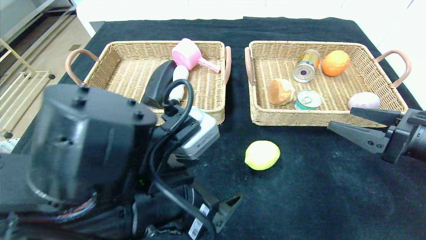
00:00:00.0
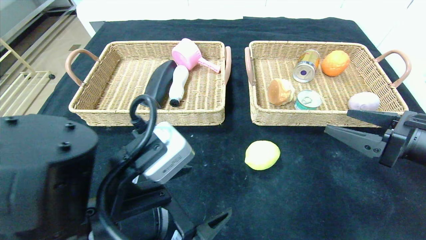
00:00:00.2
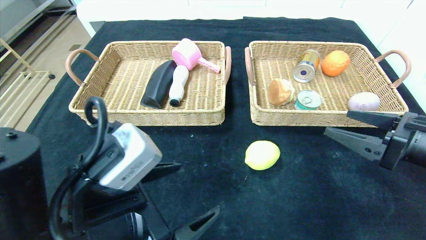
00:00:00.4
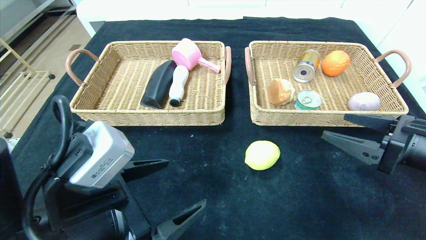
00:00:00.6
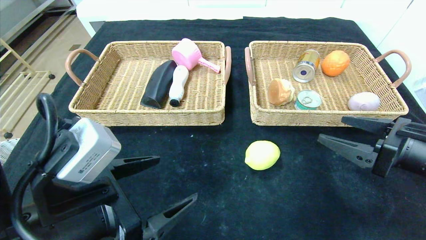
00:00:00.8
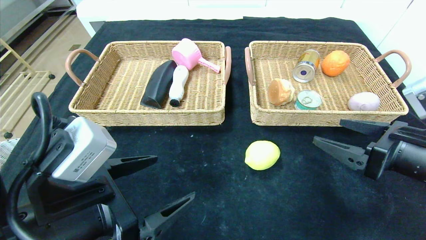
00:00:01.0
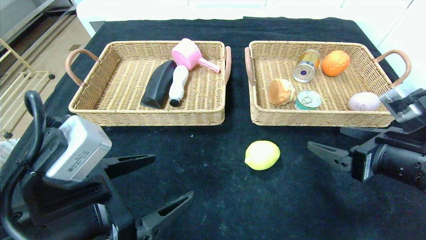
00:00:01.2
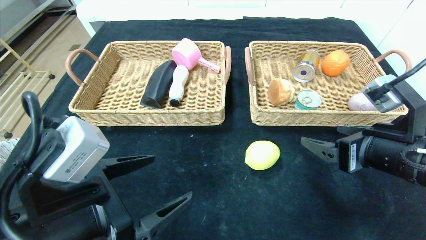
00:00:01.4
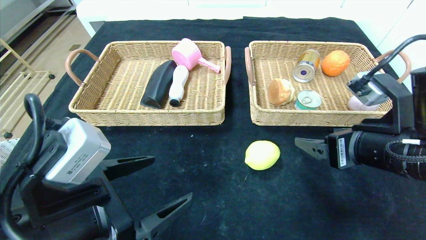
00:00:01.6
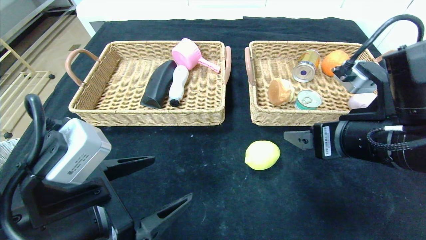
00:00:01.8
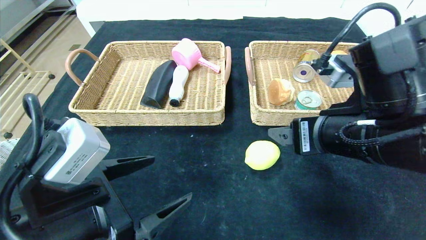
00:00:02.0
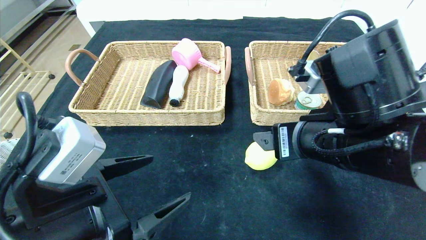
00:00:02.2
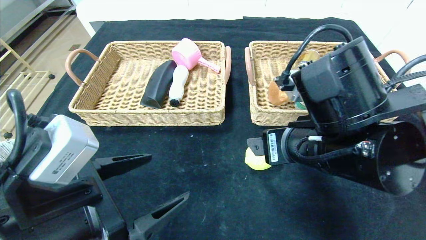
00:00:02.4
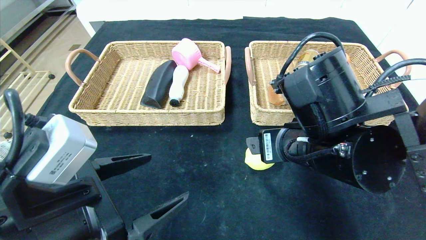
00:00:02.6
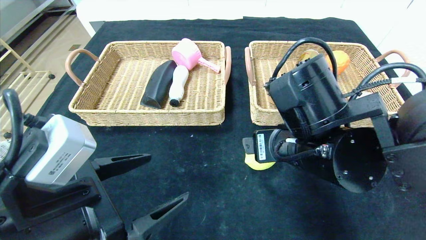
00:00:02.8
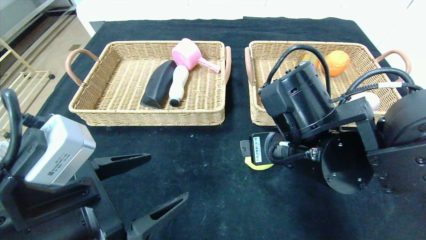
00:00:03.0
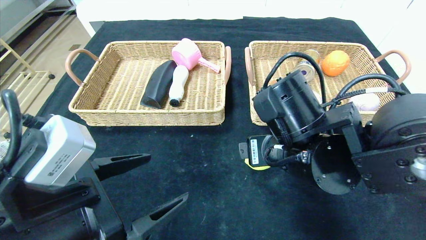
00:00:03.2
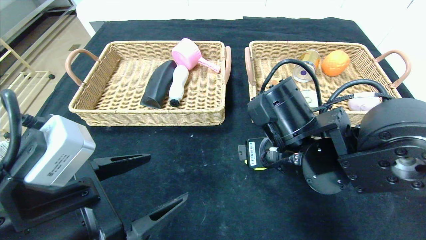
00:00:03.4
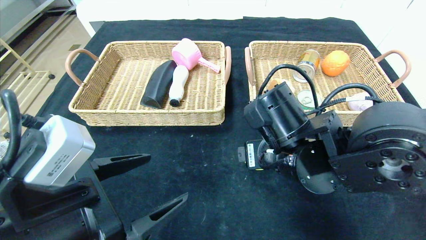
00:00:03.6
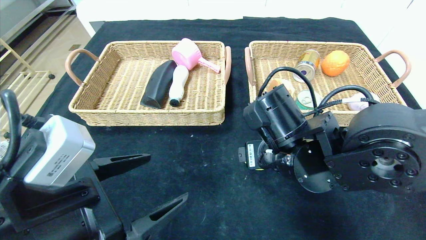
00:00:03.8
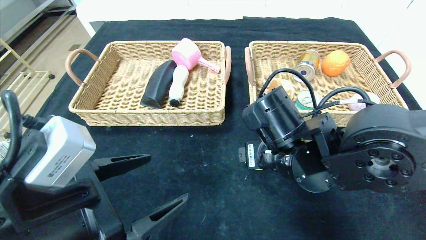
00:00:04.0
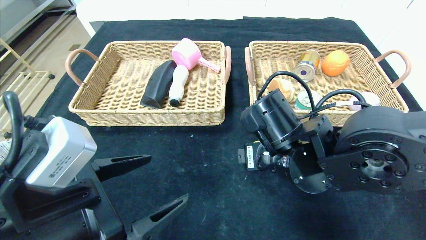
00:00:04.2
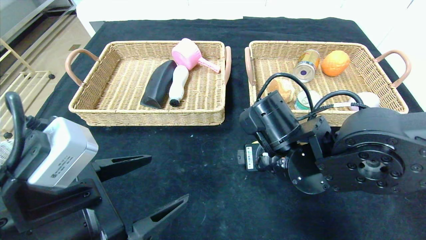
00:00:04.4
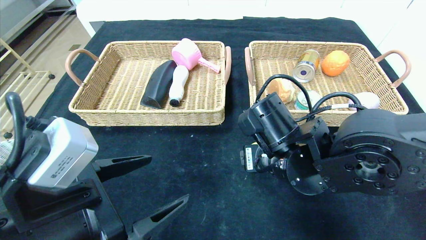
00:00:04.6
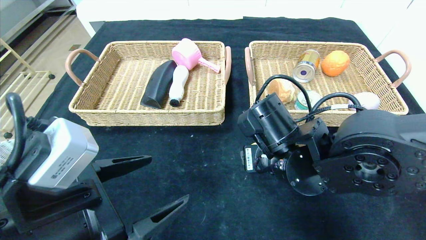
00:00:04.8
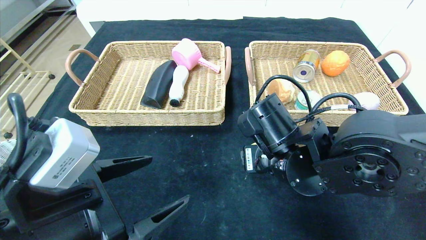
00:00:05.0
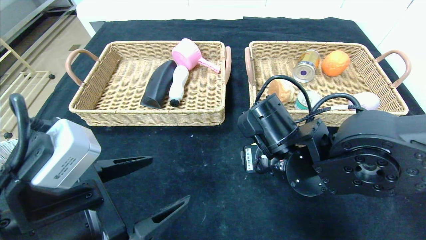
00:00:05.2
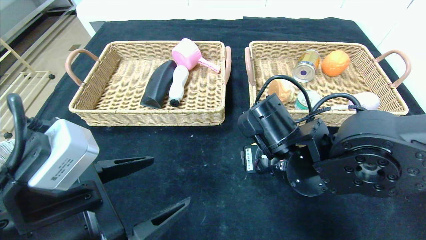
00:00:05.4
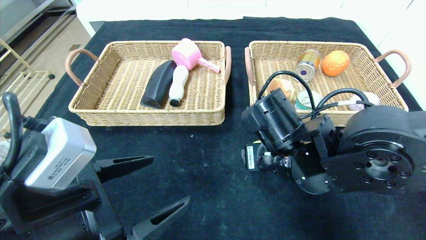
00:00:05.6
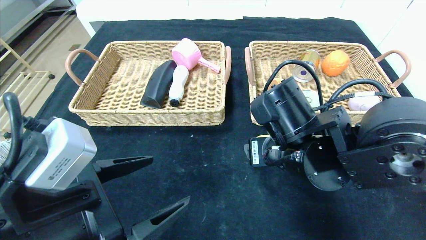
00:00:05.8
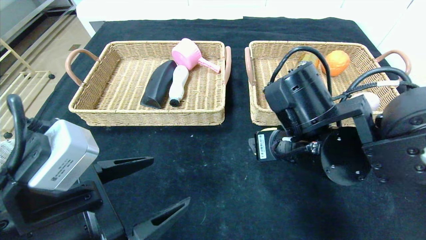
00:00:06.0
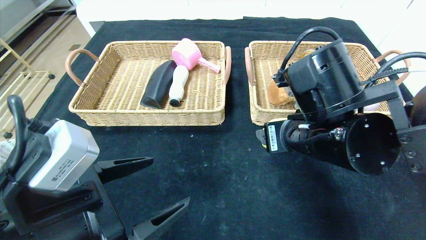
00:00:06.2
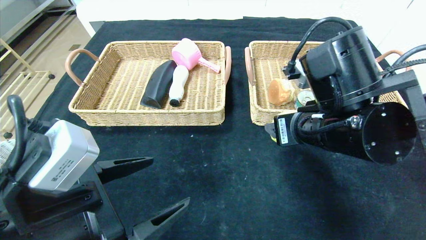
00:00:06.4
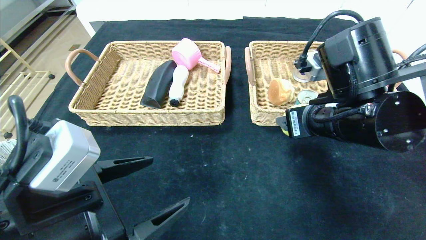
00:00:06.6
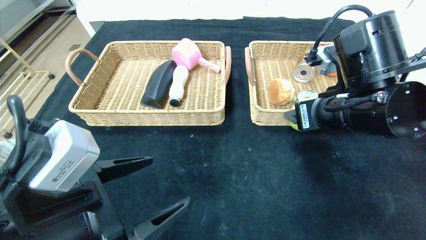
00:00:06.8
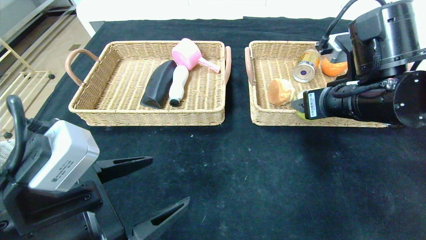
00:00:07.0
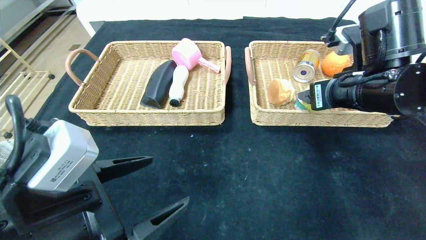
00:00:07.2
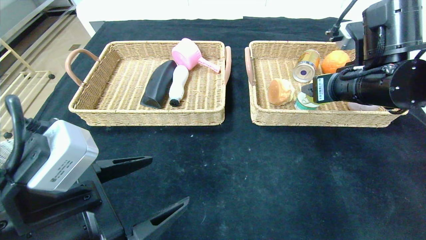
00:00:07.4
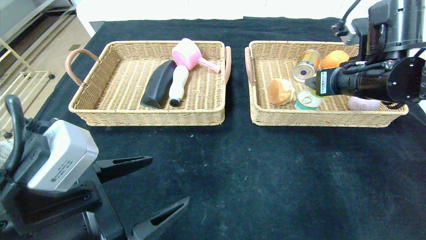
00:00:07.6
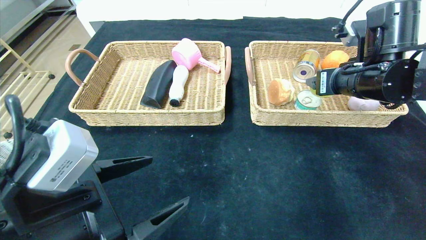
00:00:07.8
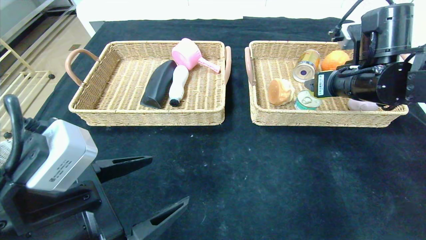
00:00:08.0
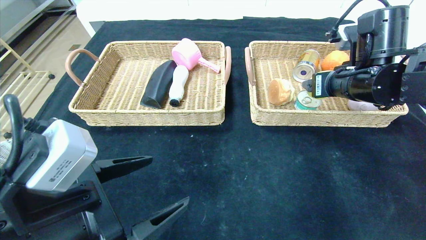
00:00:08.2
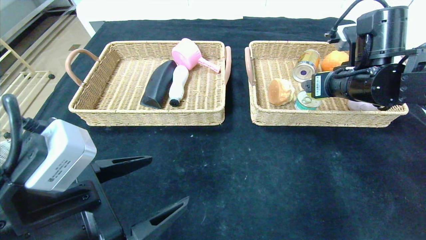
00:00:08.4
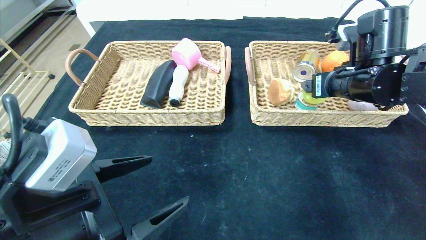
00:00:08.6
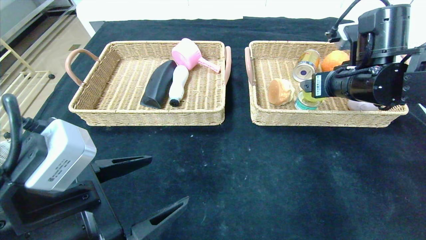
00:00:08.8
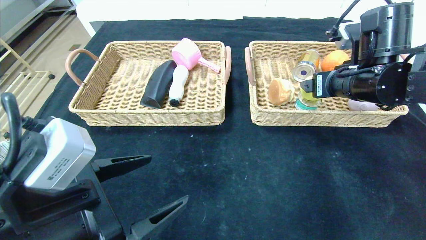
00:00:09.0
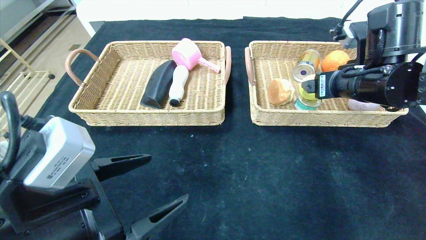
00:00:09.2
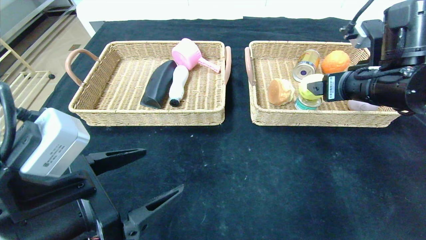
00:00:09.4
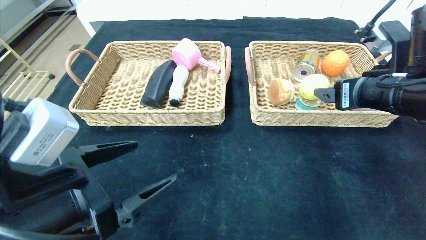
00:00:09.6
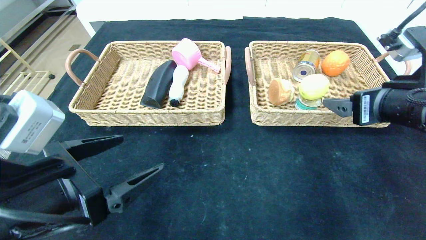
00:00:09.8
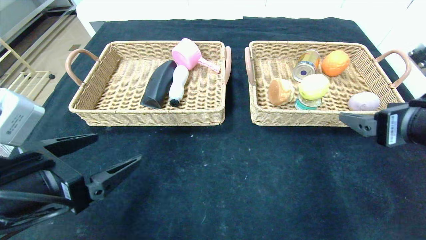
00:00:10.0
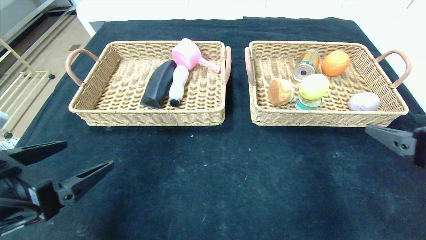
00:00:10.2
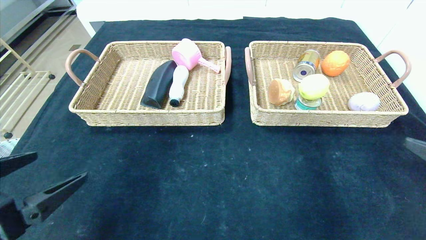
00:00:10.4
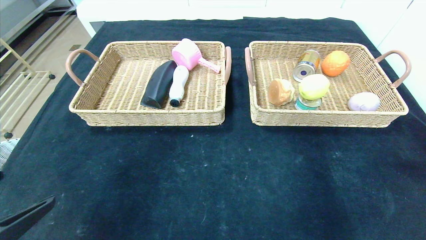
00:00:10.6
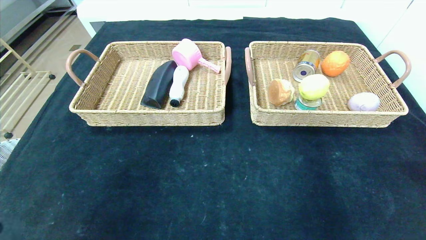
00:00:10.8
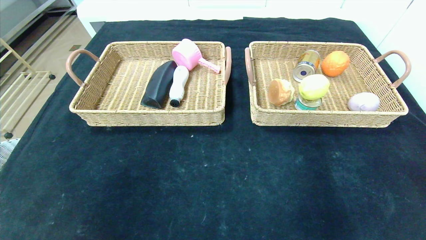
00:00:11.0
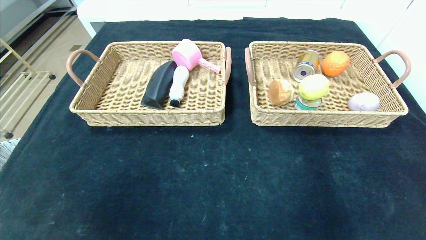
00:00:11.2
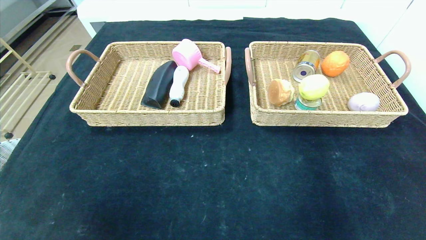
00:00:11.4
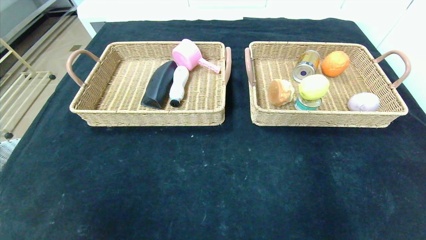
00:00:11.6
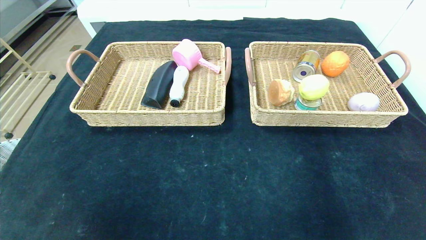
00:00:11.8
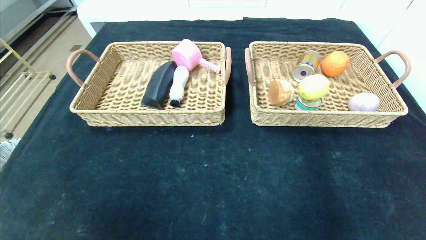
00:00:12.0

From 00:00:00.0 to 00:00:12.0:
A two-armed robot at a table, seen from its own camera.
Step, from 00:00:00.0 to 00:00:09.2: Grasp the lemon and put it in the right basket.
From 00:00:00.0 to 00:00:01.6: The grippers both shift to the left by some 10 cm.
From 00:00:01.6 to 00:00:03.0: The right gripper heads to the left, covering some 10 cm.
From 00:00:03.0 to 00:00:04.4: The grippers move only a little.
From 00:00:04.4 to 00:00:06.0: The right gripper closes its fingers.
From 00:00:06.0 to 00:00:07.6: The right gripper goes approximately 15 cm to the right, forward and upward.
From 00:00:07.6 to 00:00:09.0: The right gripper opens up.
From 00:00:09.0 to 00:00:10.4: The right gripper is displaced backward and to the right by roughly 25 cm. The left gripper is displaced to the left by about 10 cm.
From 00:00:10.4 to 00:00:12.0: The right gripper moves backward and downward, roughly 20 cm. The left gripper is displaced backward by approximately 20 cm.
